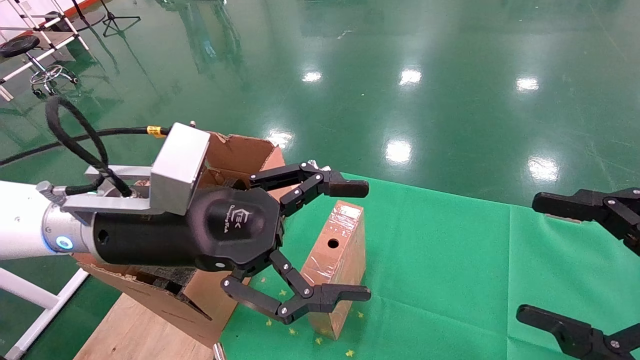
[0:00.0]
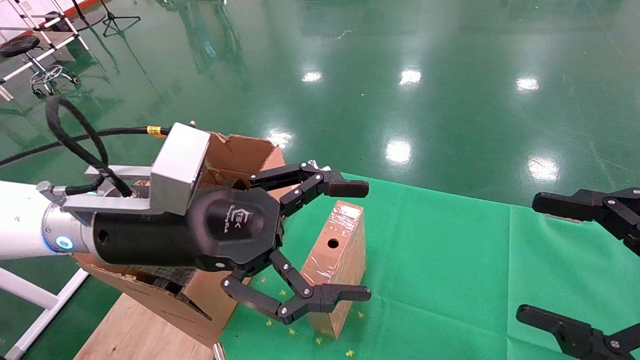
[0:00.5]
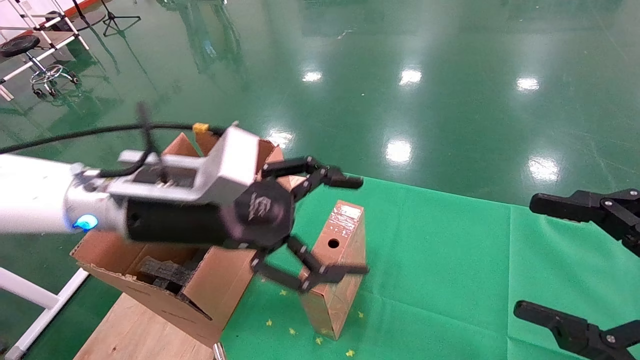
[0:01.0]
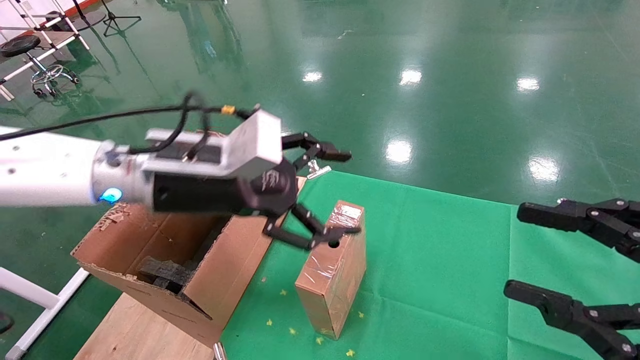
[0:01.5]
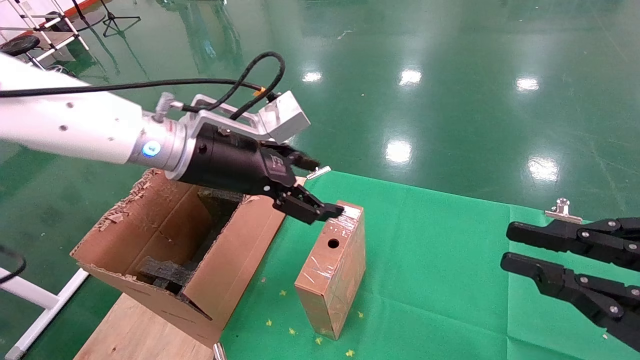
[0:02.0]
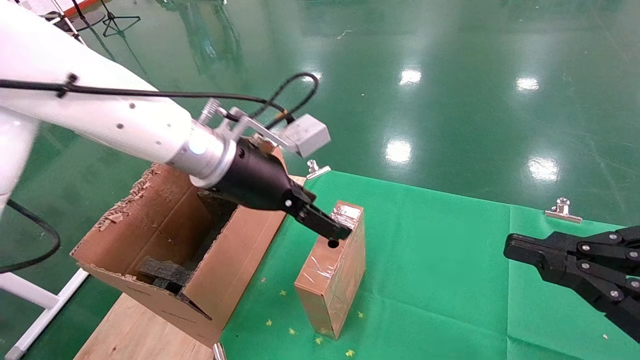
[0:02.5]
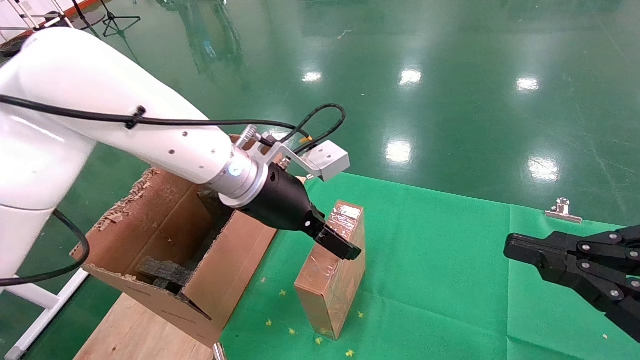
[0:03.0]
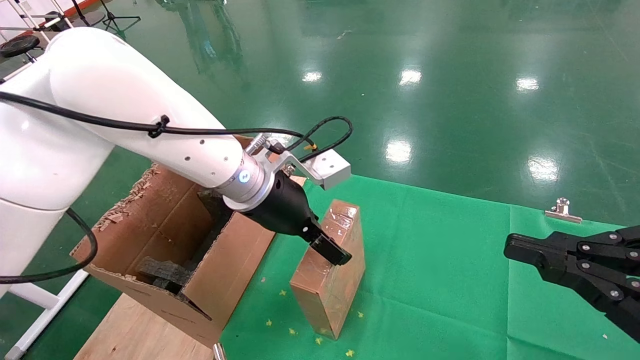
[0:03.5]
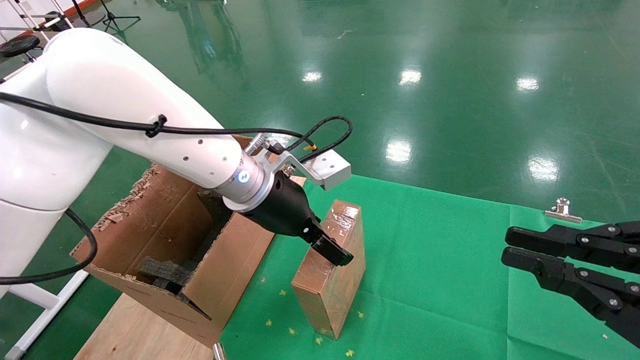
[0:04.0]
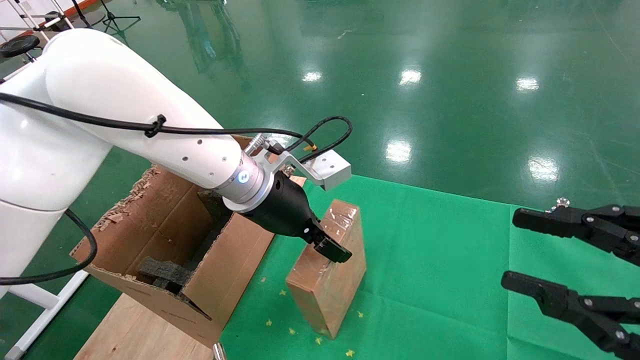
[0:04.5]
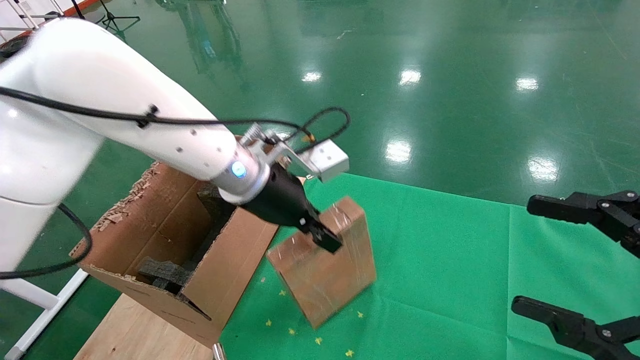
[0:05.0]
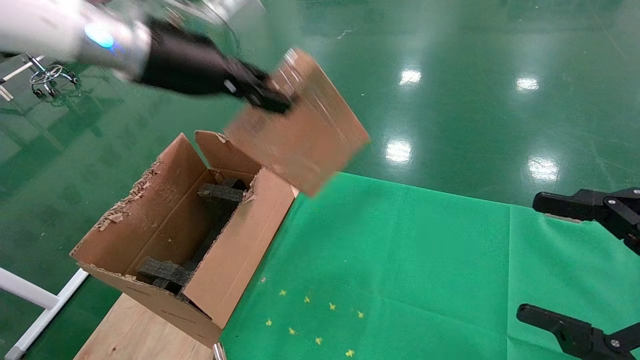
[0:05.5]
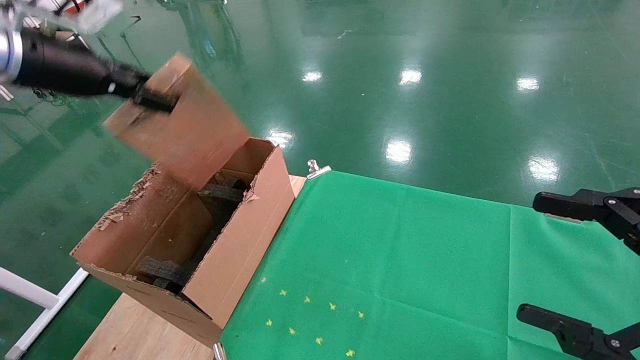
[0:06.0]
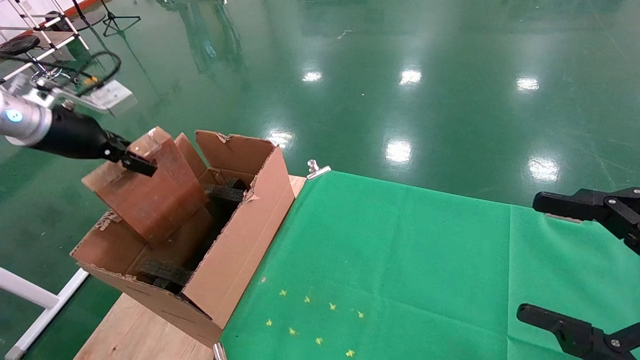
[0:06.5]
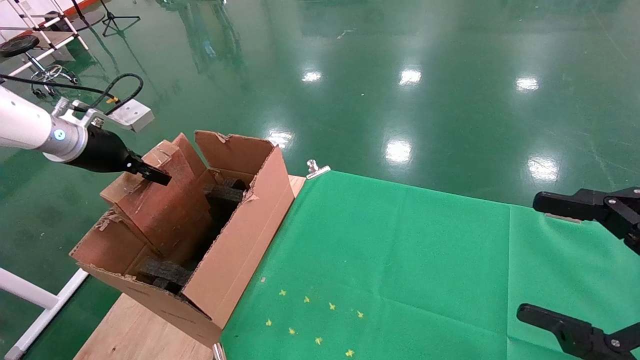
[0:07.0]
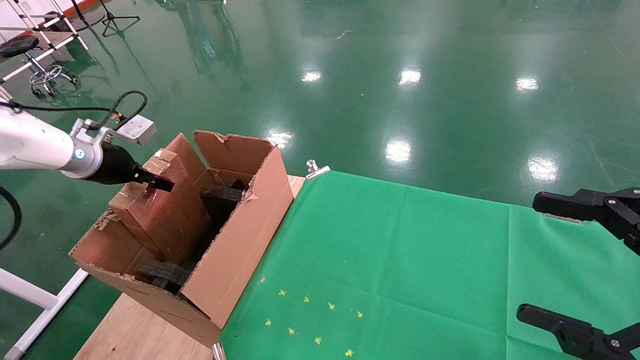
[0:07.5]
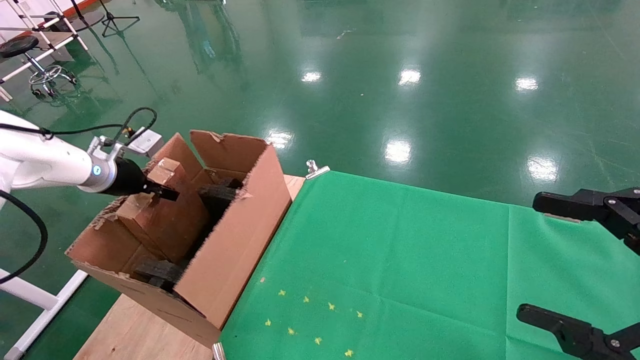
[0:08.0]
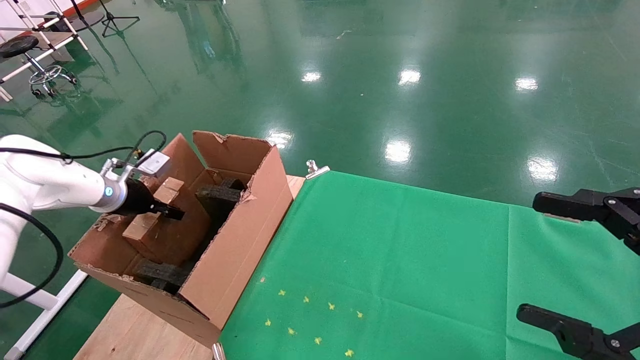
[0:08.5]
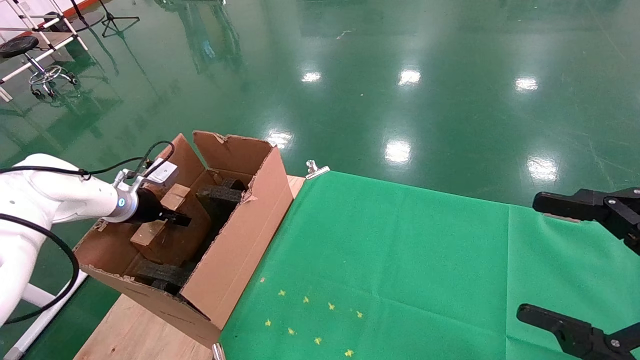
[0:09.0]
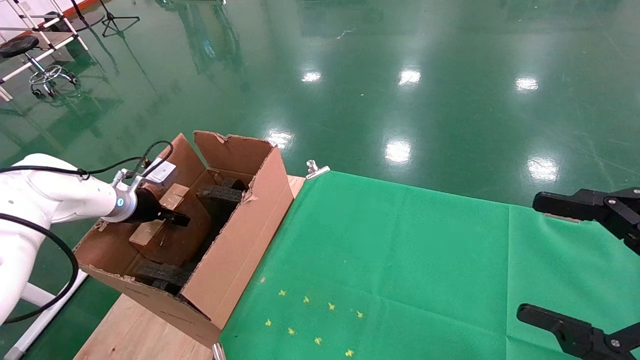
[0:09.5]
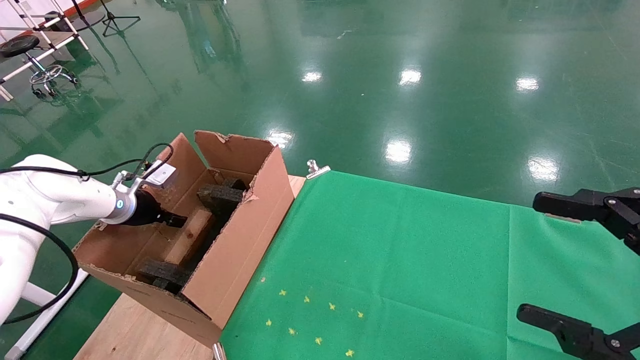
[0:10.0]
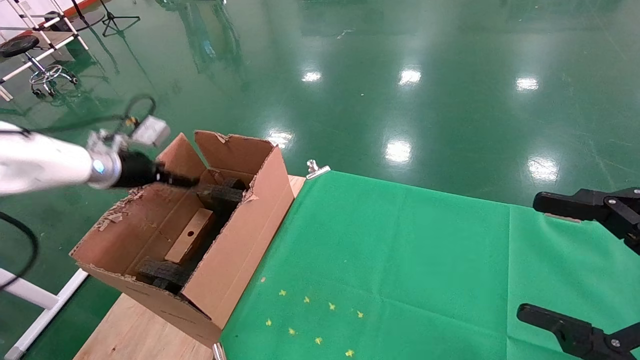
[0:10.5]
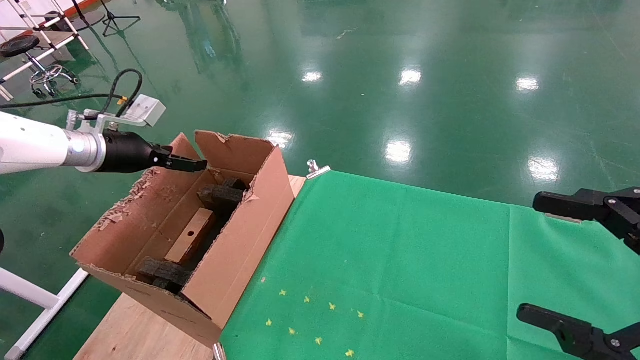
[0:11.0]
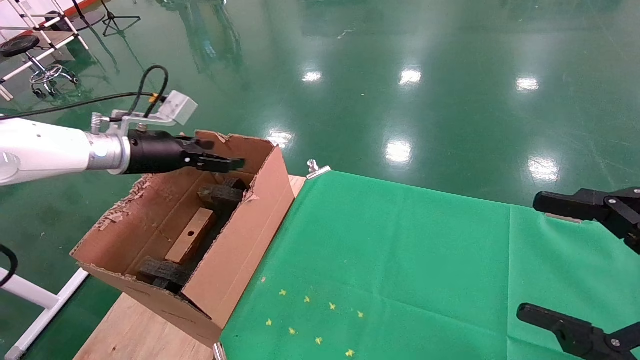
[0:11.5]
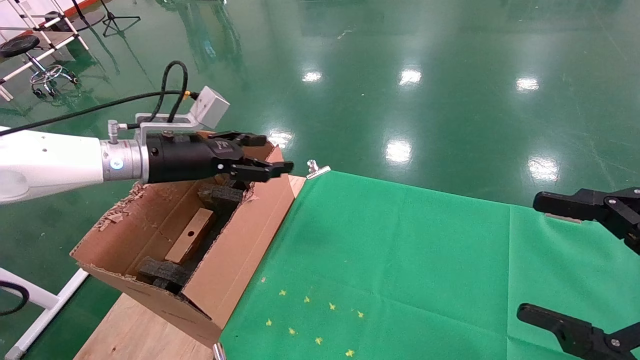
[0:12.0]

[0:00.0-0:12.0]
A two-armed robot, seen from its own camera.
Task of the whole recording: using a robotic arm to pick up a cardboard box and palace it the carton.
Step, 0:01.5 to 0:04.5: Pick up the mouse and the power cord paper box.
Step, 0:05.0 to 0:10.5: Place the mouse and the power cord paper box into the container.
0:00.0 to 0:02.0: The left gripper shifts roughly 10 cm forward, while the right gripper closes.
0:02.0 to 0:04.0: The left gripper travels to the right by approximately 5 cm.
0:04.0 to 0:06.0: The right gripper opens its fingers. The left gripper is displaced to the left and upward by some 30 cm, and closes up.
0:06.0 to 0:08.0: The left gripper heads downward and forward, covering about 20 cm.
0:08.0 to 0:10.0: The left gripper travels downward by some 5 cm, and opens.
0:10.0 to 0:12.0: The left gripper is displaced to the right and upward by approximately 20 cm, and opens its fingers.

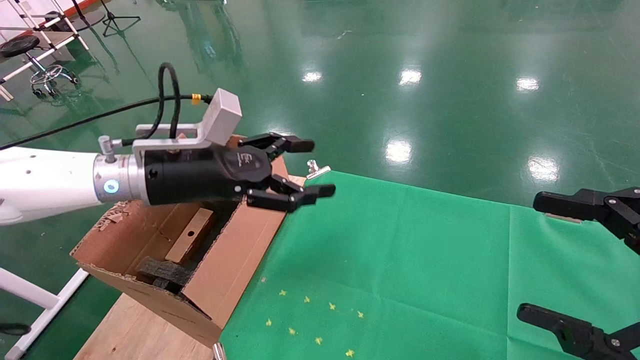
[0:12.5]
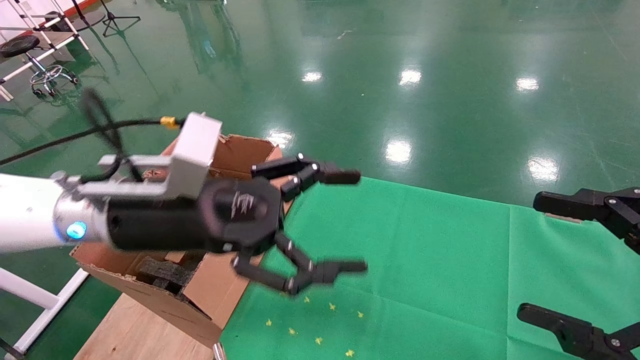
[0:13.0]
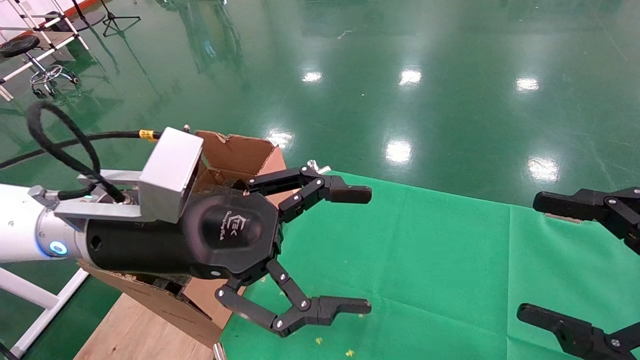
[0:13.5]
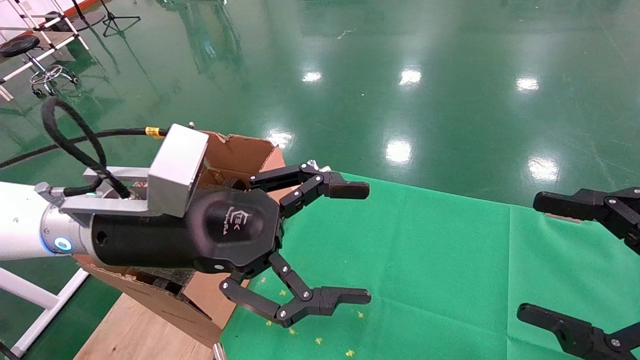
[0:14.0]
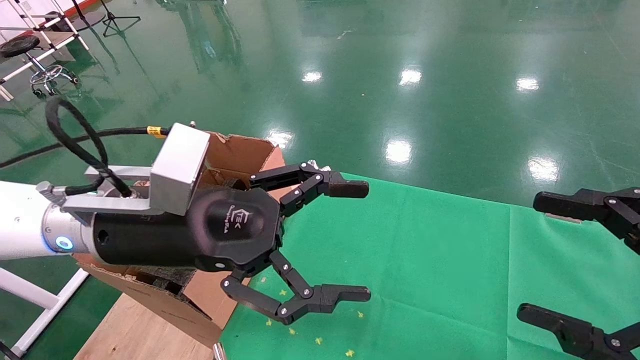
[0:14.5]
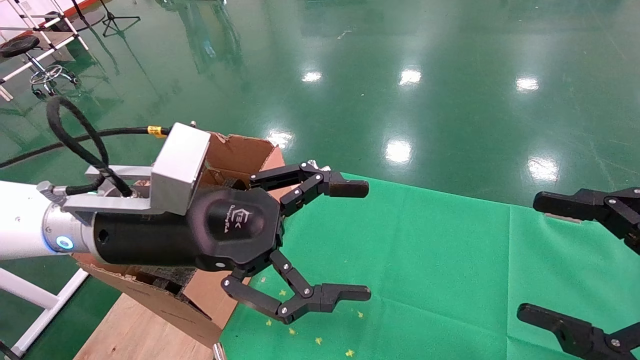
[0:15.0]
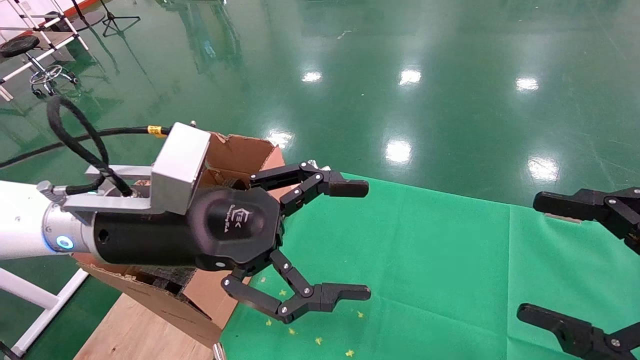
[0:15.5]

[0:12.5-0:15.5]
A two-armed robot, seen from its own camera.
Task of the whole recording: using a robotic arm to pick up a cardboard box and palace it the carton.
0:12.5 to 0:14.0: The left gripper is displaced backward and to the right by roughly 10 cm.
0:14.0 to 0:15.5: The two grippers keep their place.

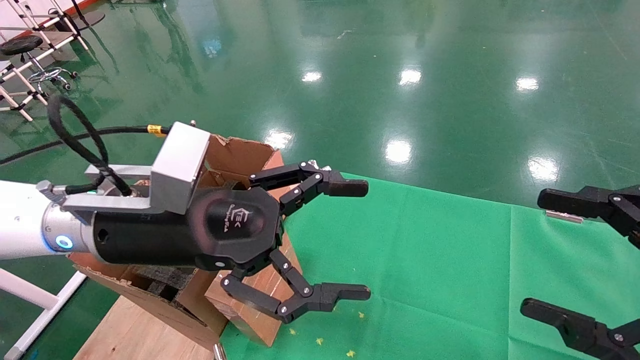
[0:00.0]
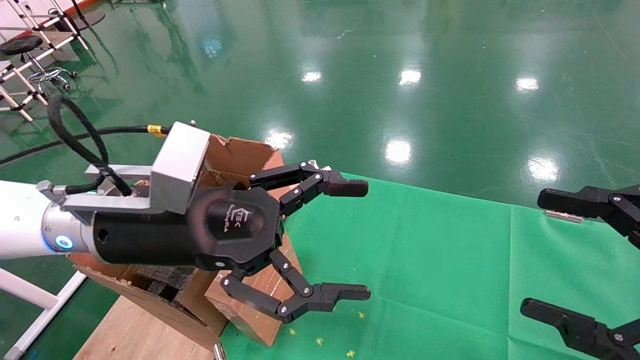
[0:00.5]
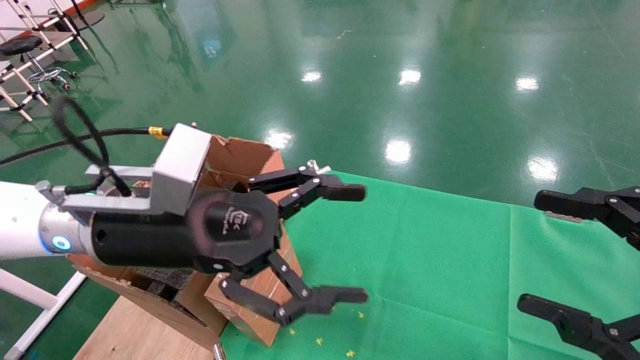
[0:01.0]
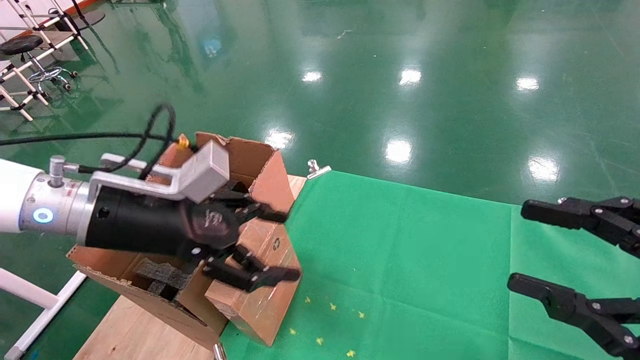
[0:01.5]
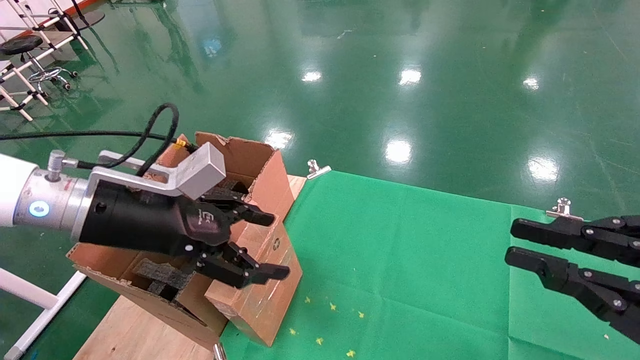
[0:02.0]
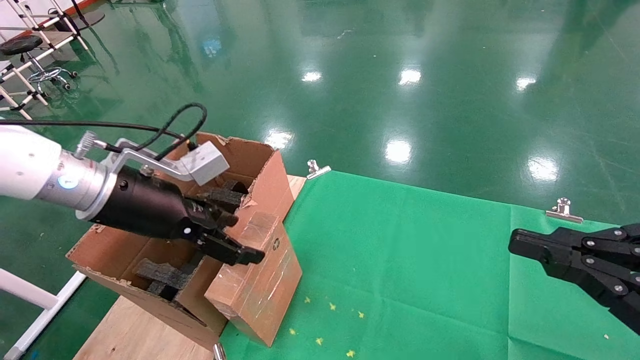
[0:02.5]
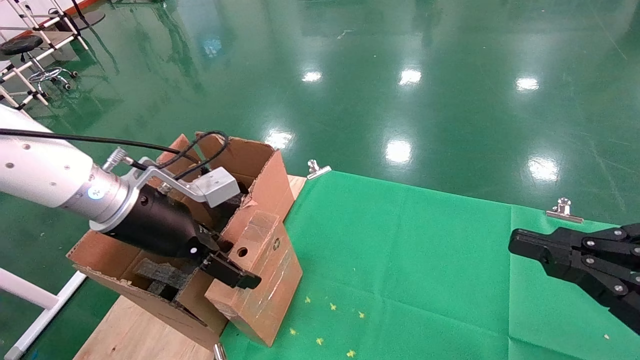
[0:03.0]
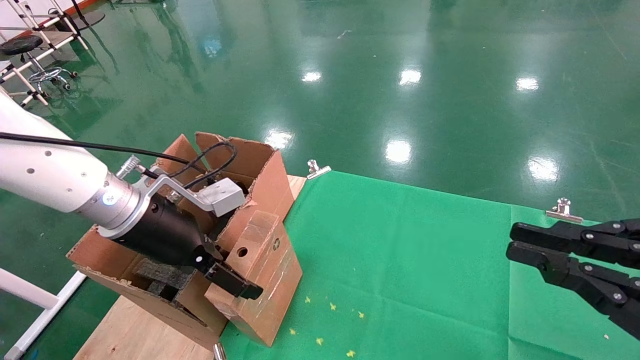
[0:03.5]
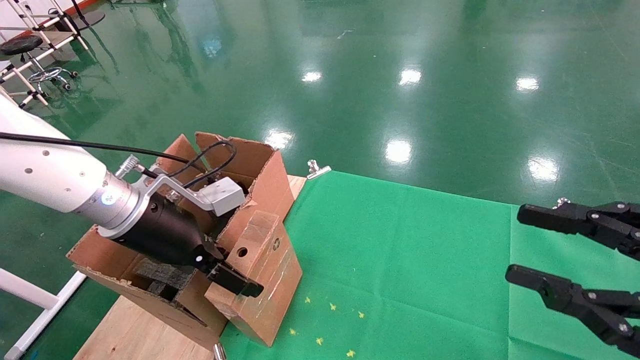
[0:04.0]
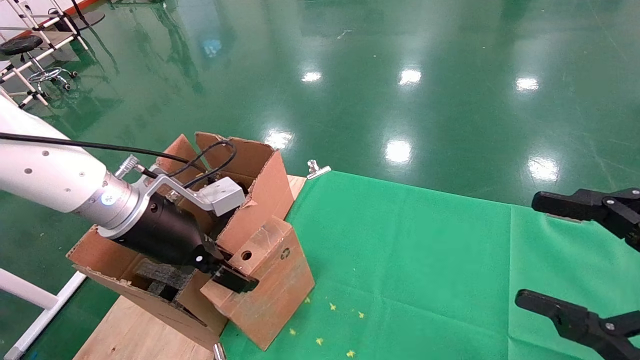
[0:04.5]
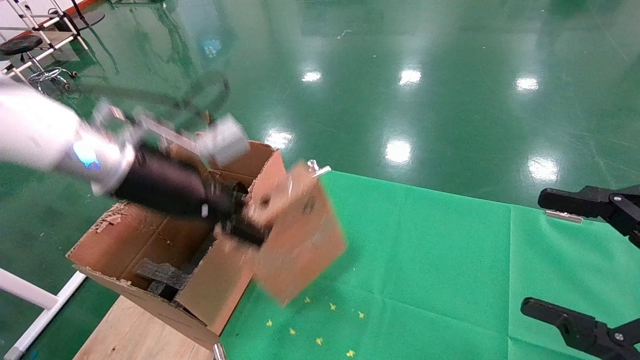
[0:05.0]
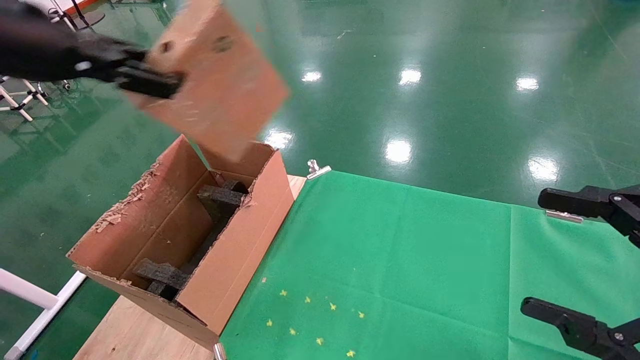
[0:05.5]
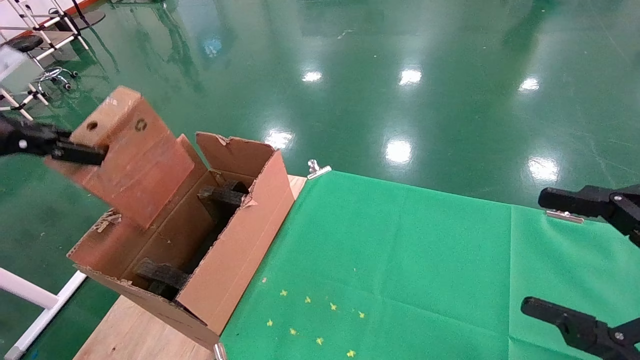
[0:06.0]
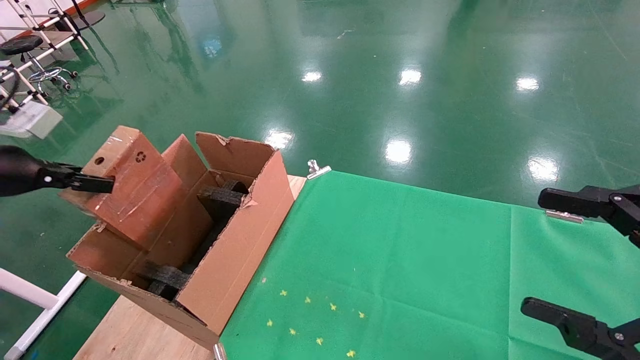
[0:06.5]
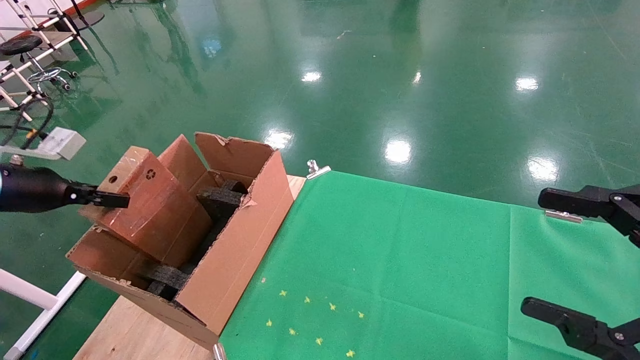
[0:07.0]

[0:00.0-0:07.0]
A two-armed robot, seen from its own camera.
Task of the whole recording: using a robotic arm to pick up a cardboard box and palace it the carton.
Step, 0:01.5 to 0:04.5: Pick up the mouse and the power cord paper box.
0:00.0 to 0:02.0: The right gripper closes up; the left gripper goes approximately 5 cm to the left.
0:03.5 to 0:05.0: The left gripper shifts roughly 10 cm upward, and closes up, while the right gripper opens its fingers.
0:05.0 to 0:07.0: The left gripper is displaced to the left by about 25 cm.
